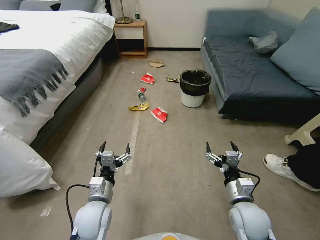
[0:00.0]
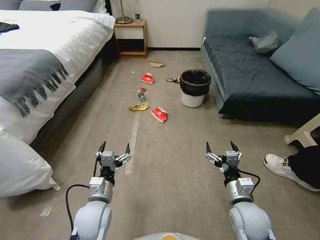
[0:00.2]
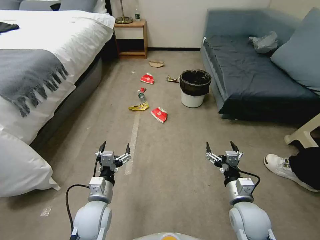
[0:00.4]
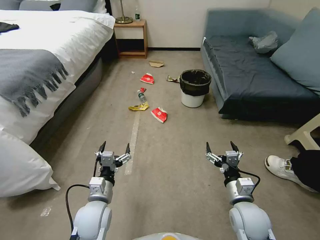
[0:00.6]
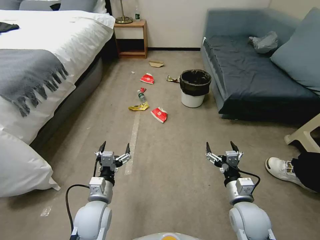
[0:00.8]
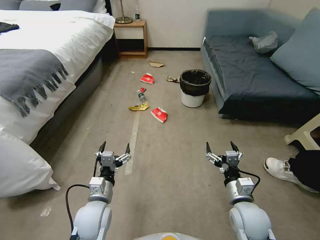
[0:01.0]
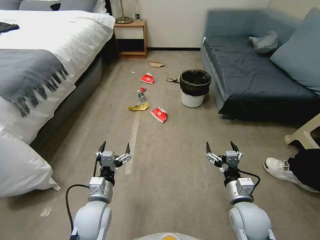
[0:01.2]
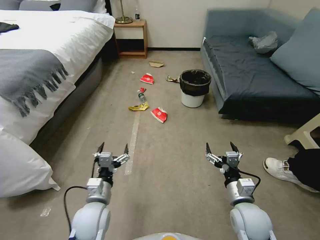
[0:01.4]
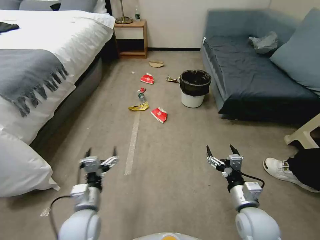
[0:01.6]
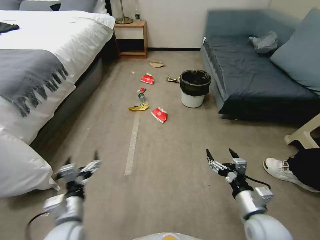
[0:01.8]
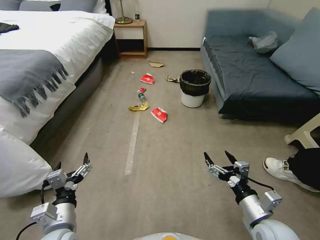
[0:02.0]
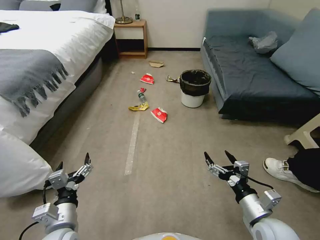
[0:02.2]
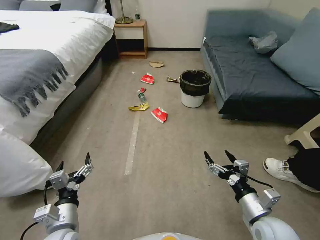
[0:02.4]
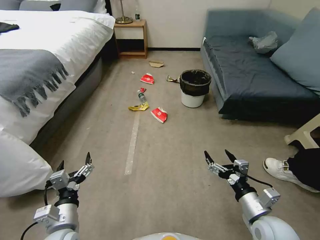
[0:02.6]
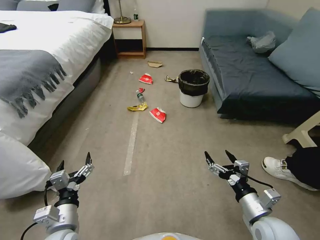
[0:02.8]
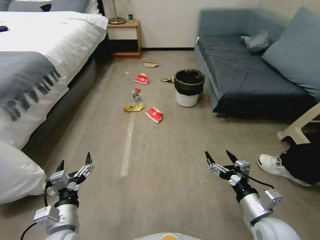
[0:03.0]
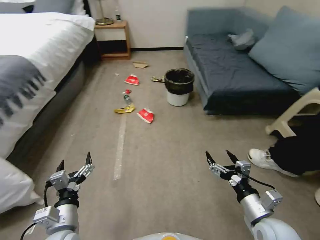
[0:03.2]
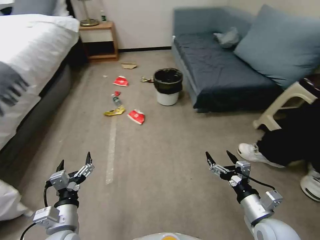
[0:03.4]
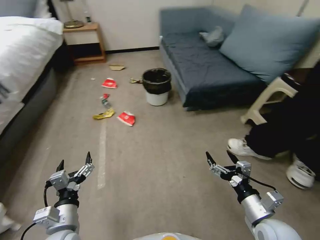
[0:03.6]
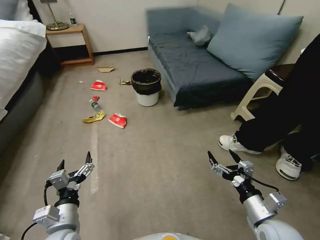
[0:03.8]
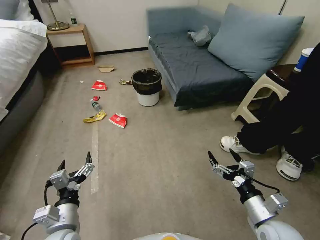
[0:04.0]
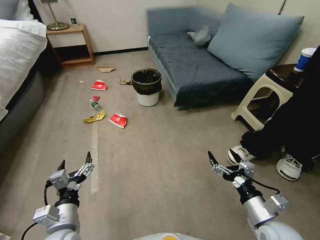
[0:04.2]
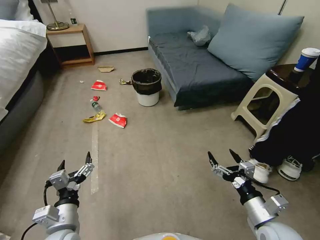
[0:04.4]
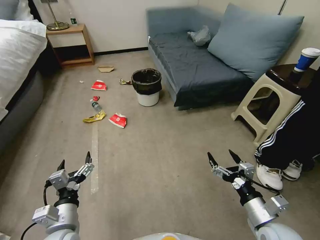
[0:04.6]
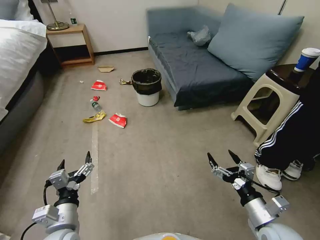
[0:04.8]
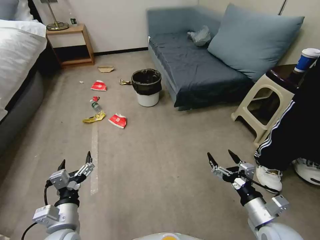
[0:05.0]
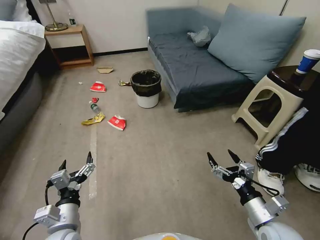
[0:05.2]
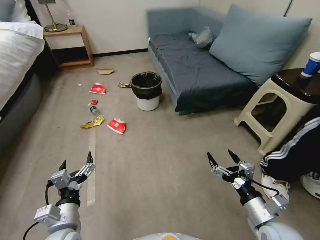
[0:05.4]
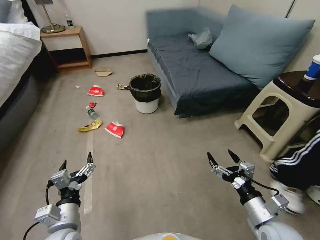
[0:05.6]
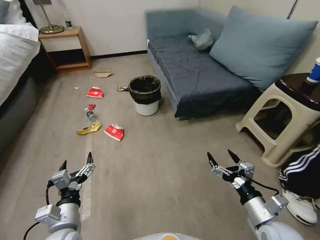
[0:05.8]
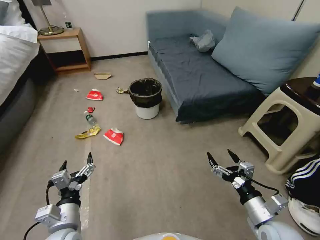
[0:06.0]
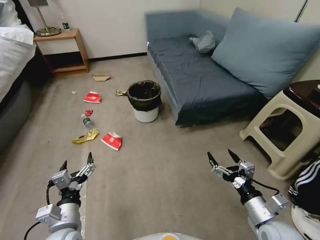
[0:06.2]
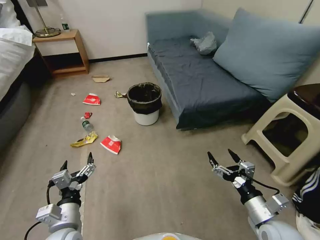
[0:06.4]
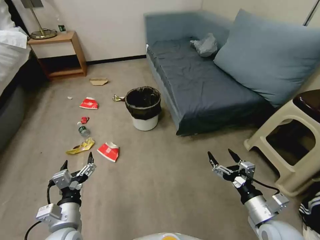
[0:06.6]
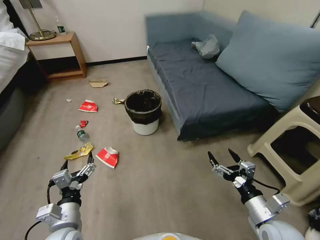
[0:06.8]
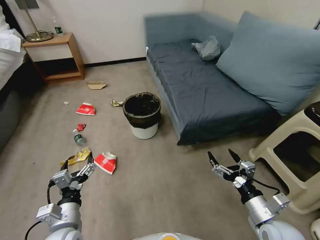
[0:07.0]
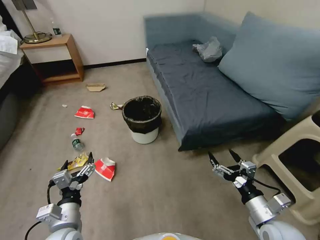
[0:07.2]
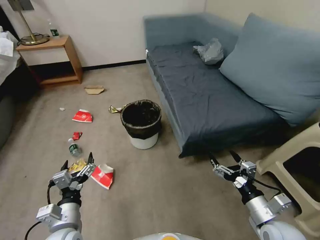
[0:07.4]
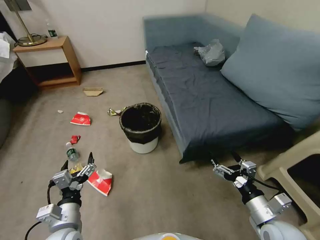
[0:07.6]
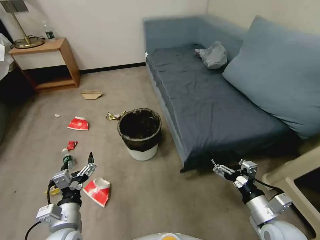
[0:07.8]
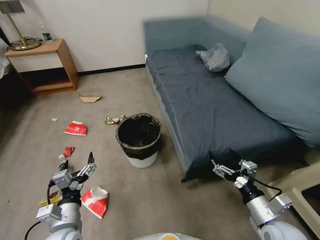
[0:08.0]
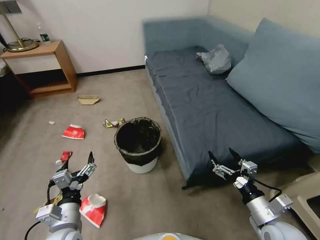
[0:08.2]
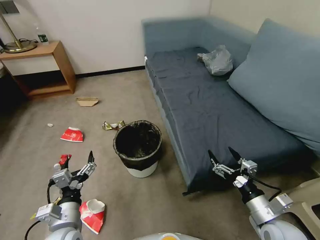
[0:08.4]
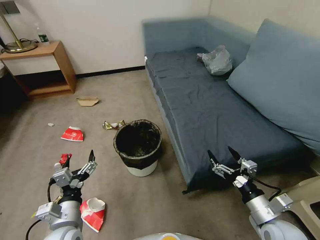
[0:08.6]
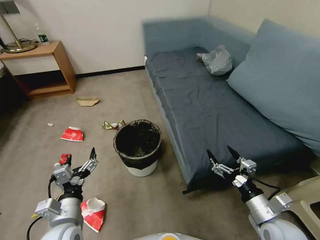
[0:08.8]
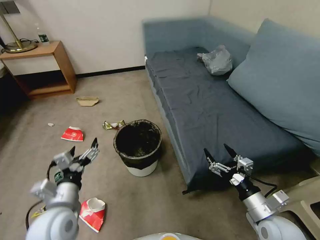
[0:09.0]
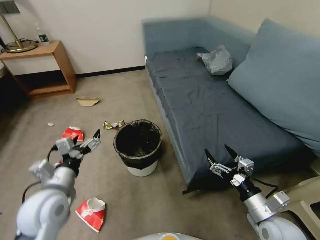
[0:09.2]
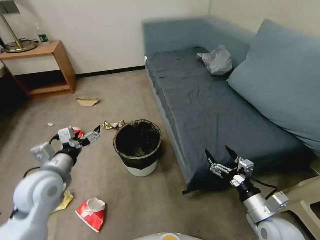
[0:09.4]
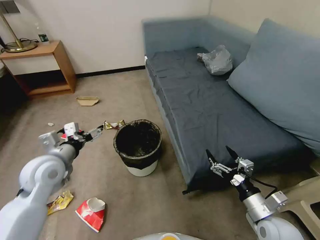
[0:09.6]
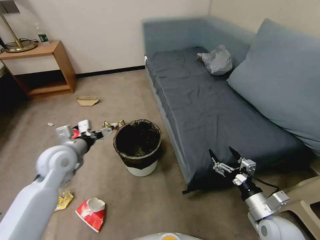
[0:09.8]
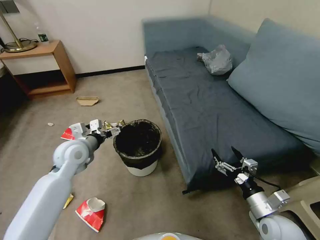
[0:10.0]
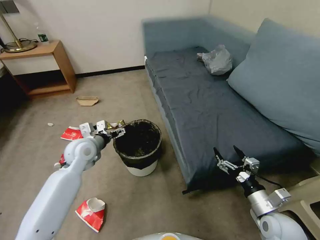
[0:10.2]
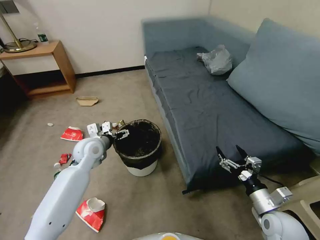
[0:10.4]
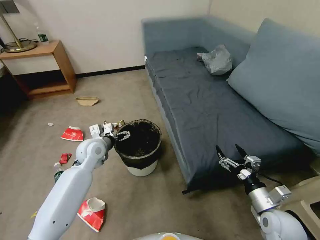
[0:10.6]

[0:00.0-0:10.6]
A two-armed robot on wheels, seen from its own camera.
Task of the whole recording: Pick up the trash can from the floor.
0:01.6 to 0:03.0: The left gripper moves approximately 5 cm.
0:07.6 to 0:09.0: The left gripper goes some 5 cm upward.
0:09.0 to 0:10.6: The left gripper moves forward, some 20 cm.

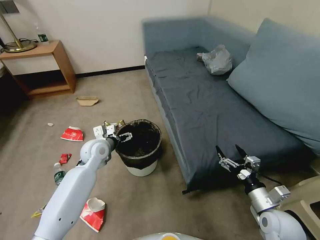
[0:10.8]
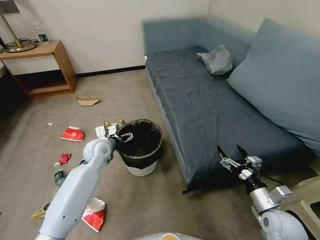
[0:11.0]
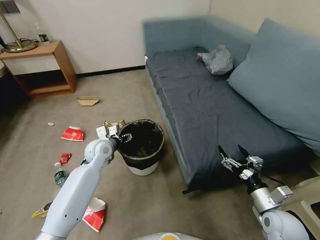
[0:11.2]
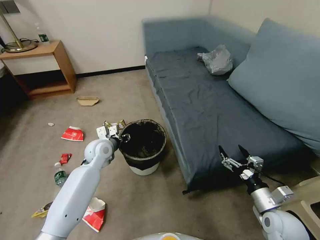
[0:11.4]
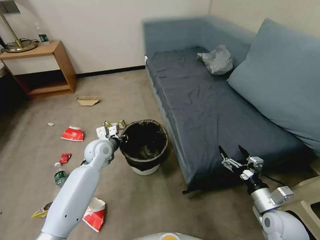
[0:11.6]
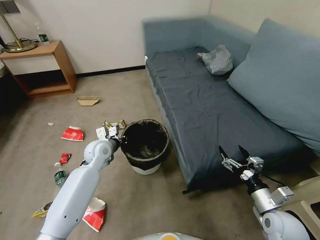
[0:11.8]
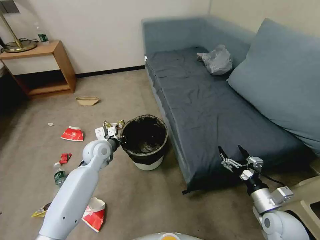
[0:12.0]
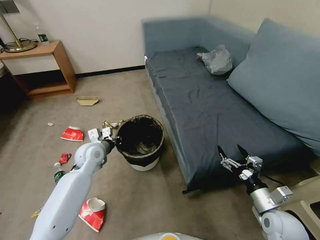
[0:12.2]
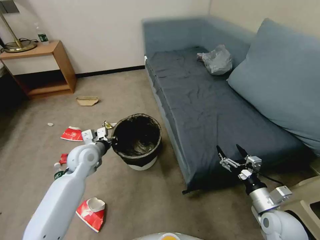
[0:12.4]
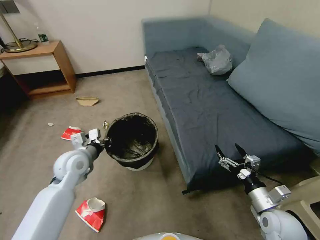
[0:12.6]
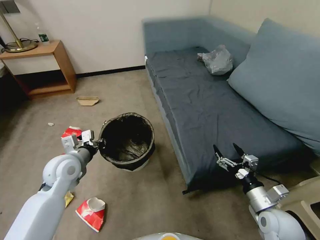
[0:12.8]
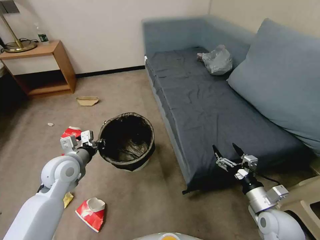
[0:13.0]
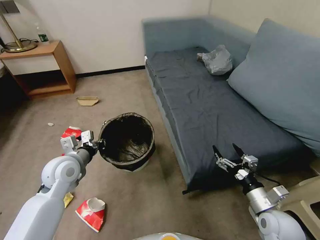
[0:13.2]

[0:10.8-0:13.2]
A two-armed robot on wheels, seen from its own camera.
Task of the whole recording: Pick up the trash can from the floor.
0:10.8 to 0:12.0: The left gripper closes.
0:12.0 to 0:13.2: The left gripper moves backward, upward and to the left, some 15 cm.

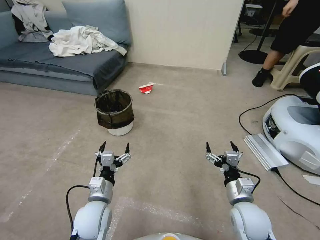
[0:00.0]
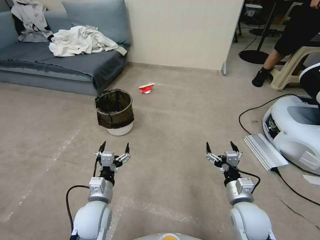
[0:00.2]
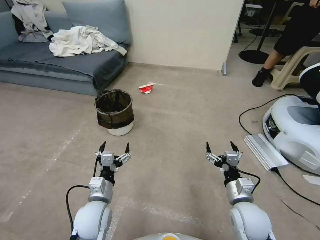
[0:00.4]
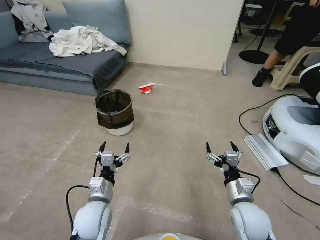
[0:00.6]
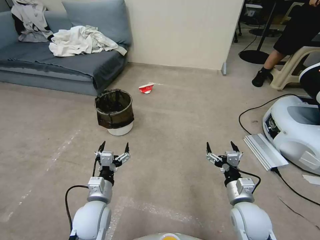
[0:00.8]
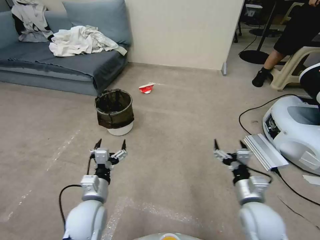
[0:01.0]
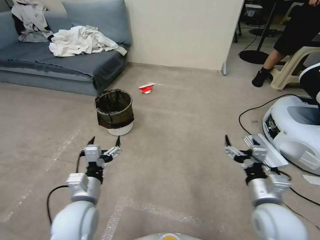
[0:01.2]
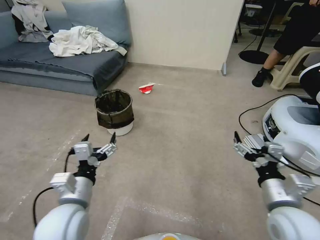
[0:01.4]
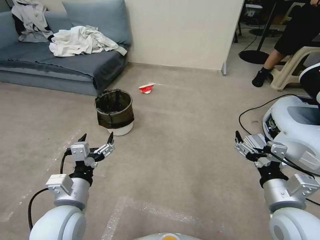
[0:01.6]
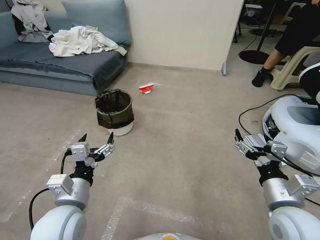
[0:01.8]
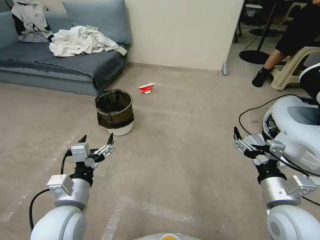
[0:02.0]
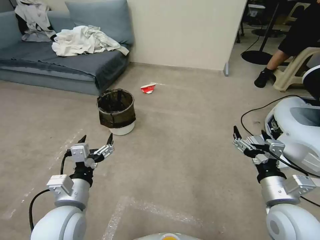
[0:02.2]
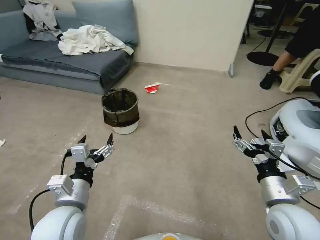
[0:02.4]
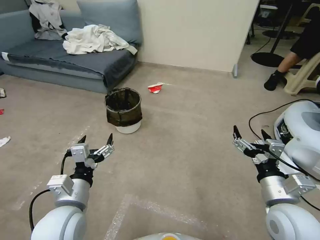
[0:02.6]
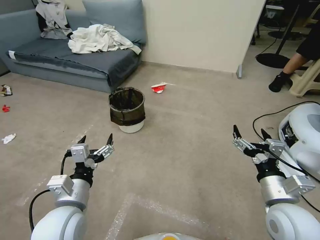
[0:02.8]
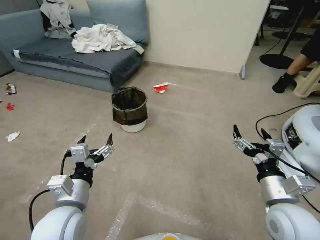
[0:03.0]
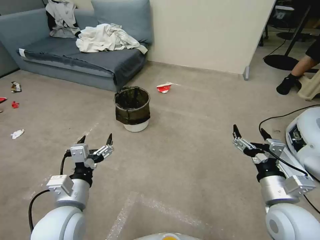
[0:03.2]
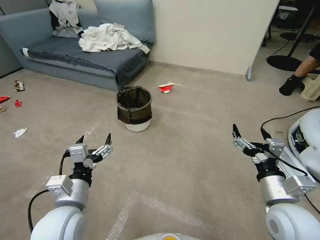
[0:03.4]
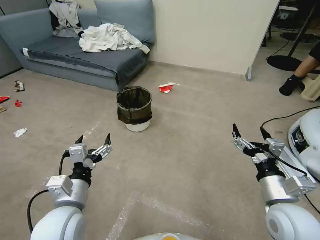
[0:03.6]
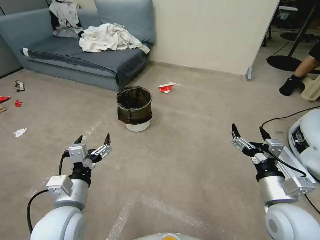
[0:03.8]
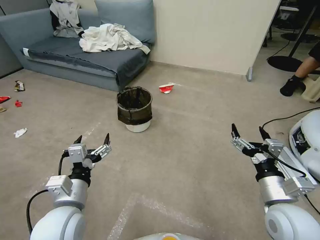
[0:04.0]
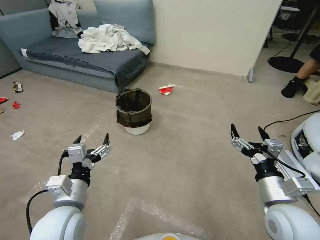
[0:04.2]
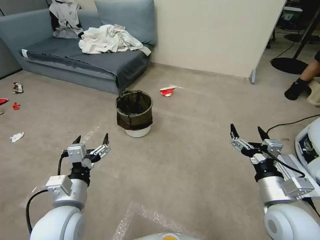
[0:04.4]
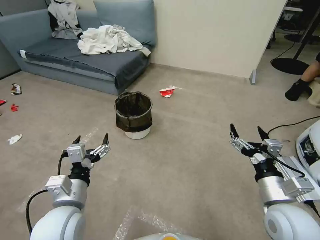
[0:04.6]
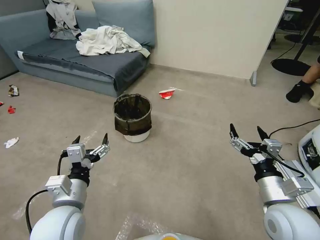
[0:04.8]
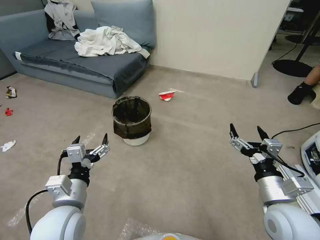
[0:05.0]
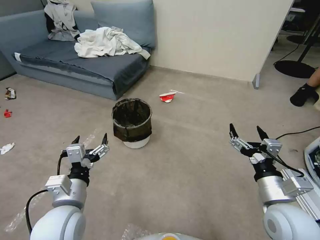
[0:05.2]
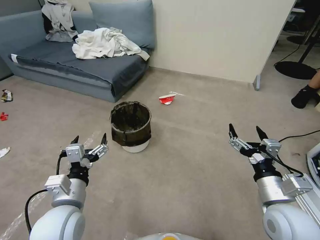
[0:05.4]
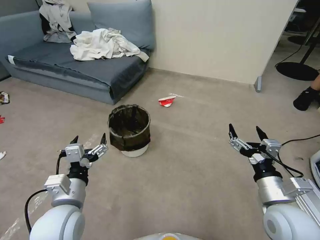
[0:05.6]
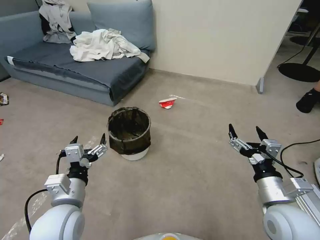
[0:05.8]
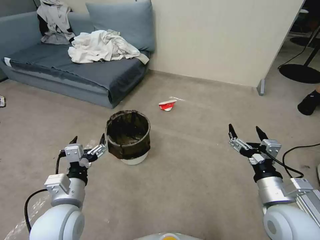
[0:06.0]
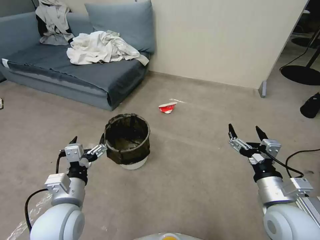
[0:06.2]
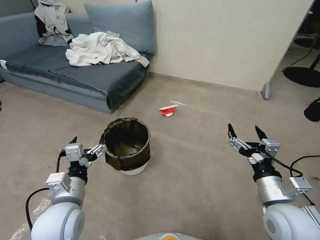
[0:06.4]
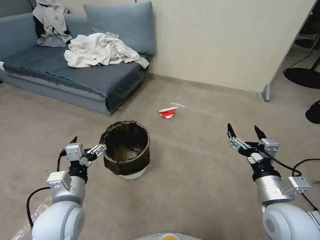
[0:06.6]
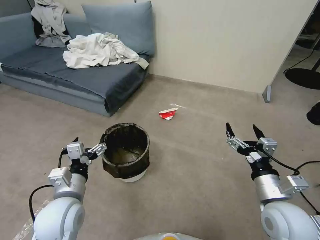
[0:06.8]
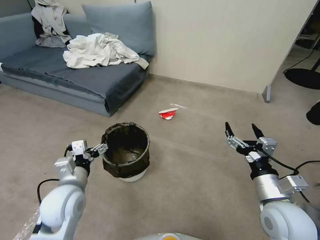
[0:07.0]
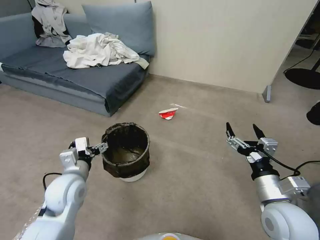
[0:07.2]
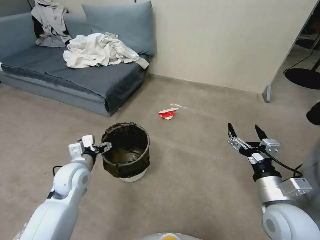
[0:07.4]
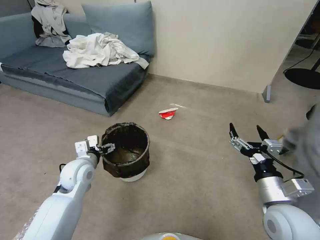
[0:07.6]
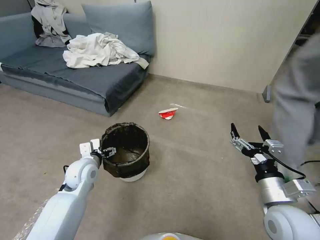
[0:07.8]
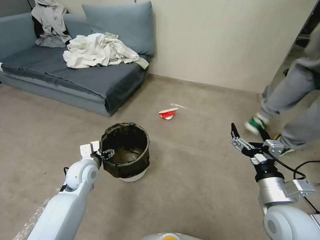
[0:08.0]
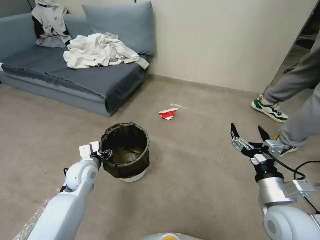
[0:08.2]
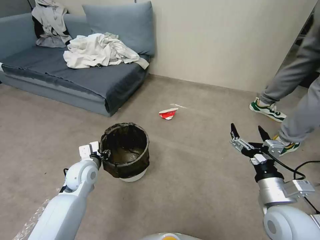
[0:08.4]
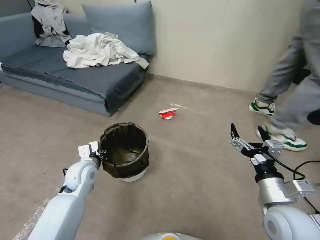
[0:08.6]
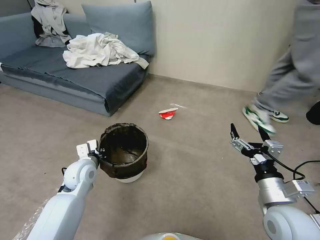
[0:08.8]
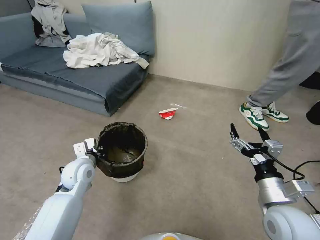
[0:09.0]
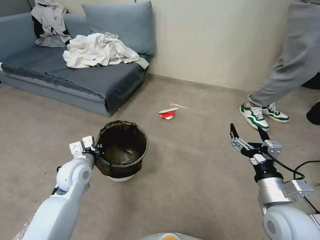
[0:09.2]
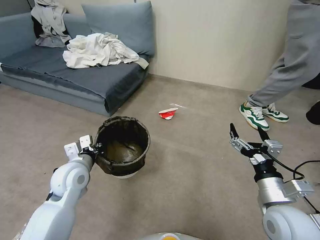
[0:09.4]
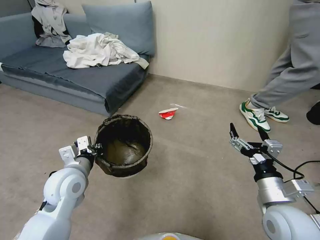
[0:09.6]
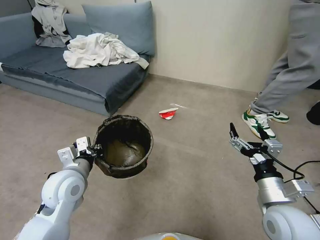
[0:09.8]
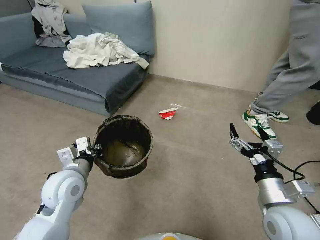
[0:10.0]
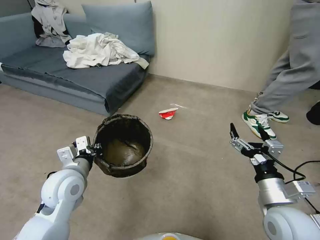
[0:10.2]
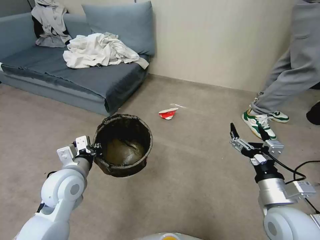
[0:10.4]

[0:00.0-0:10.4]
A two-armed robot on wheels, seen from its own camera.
Task of the whole recording: Pick up the trash can from the floor.
0:03.0 to 0:04.4: The two grippers keep their place.
0:06.0 to 0:07.4: The left gripper travels forward by about 10 cm.
0:07.4 to 0:09.0: The left gripper closes.
0:09.0 to 0:10.4: The left gripper goes about 10 cm upward and backward.
